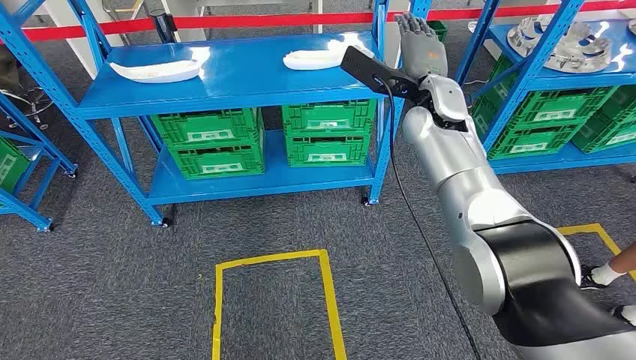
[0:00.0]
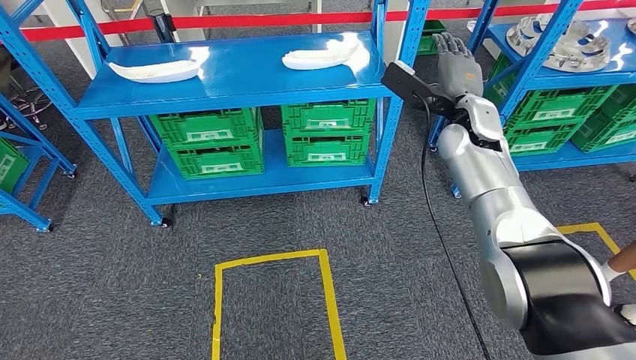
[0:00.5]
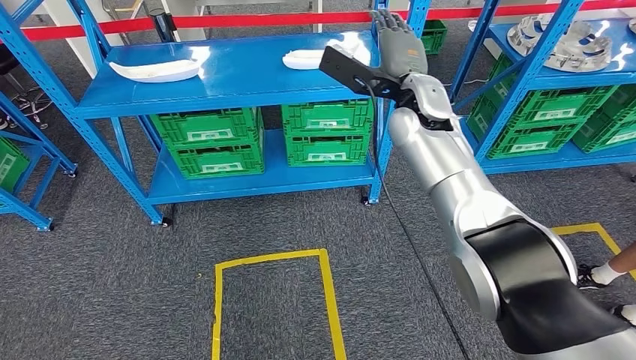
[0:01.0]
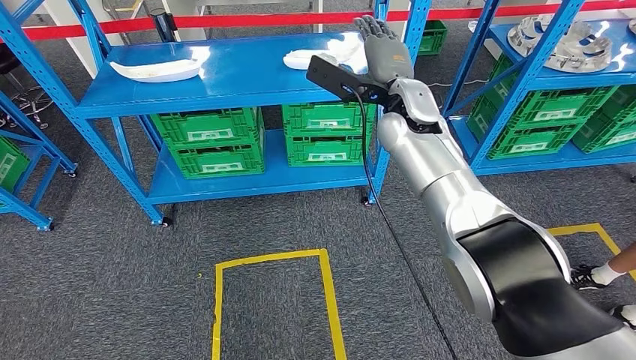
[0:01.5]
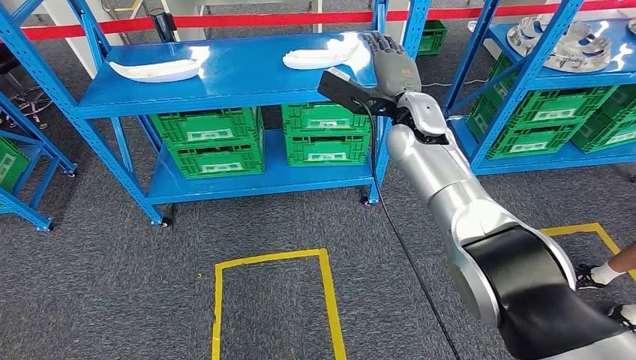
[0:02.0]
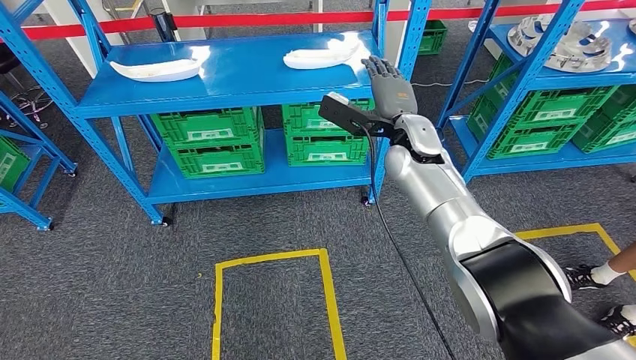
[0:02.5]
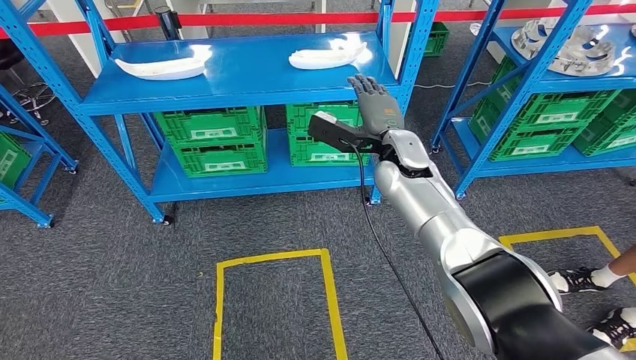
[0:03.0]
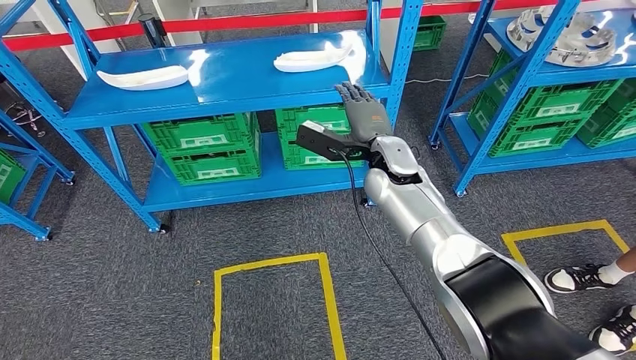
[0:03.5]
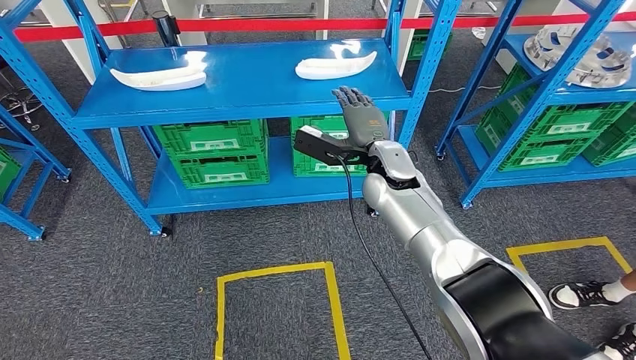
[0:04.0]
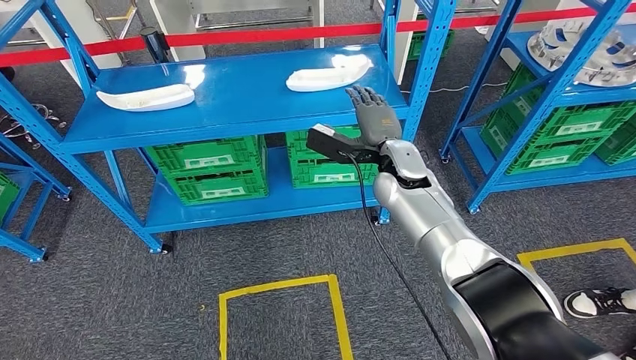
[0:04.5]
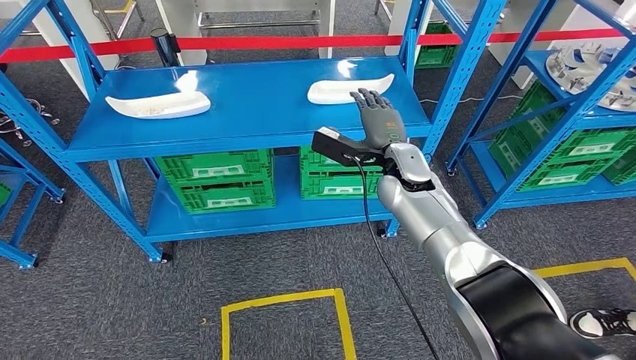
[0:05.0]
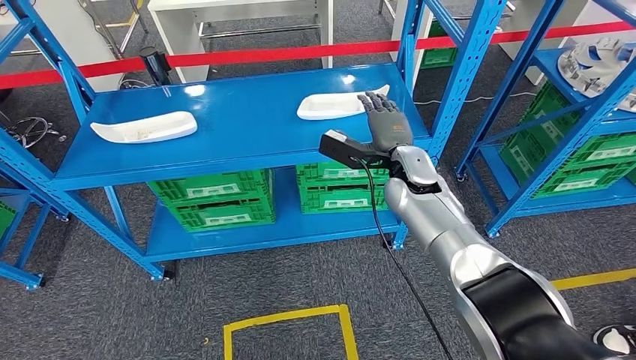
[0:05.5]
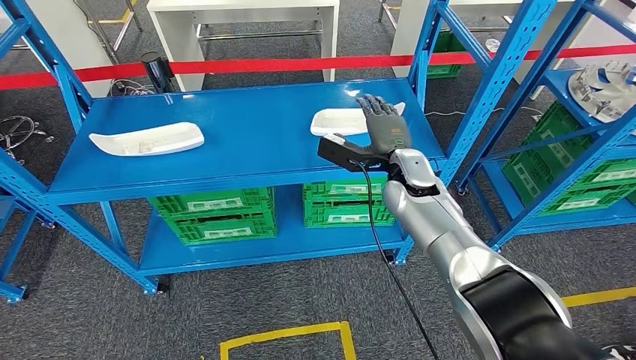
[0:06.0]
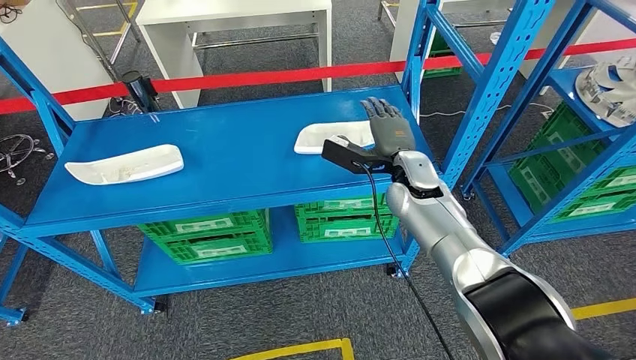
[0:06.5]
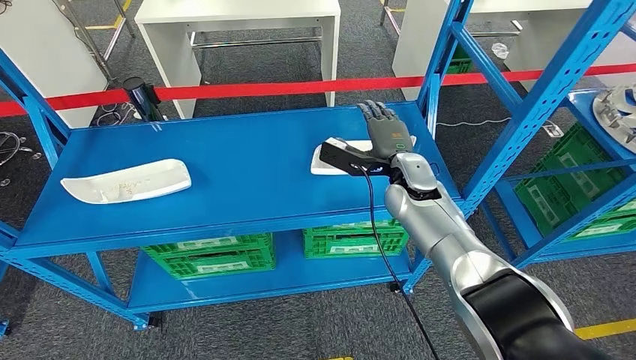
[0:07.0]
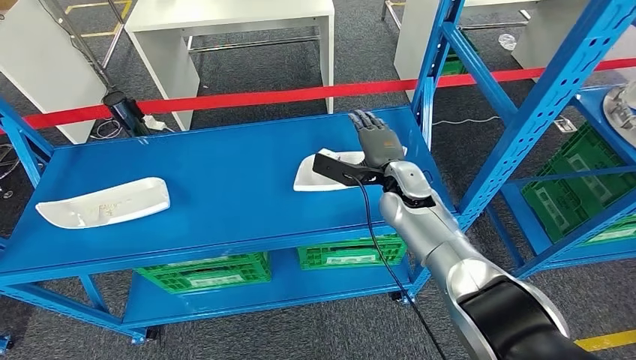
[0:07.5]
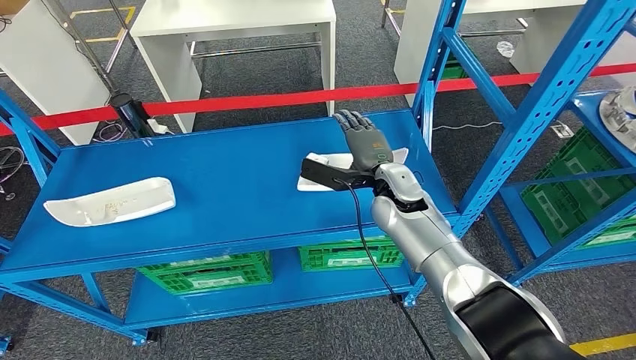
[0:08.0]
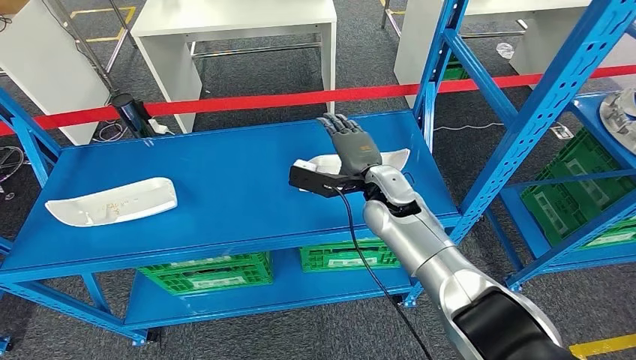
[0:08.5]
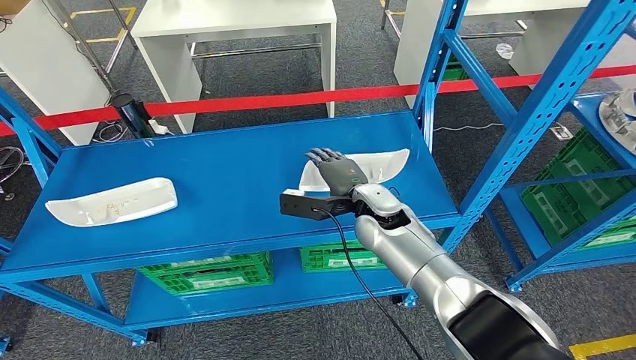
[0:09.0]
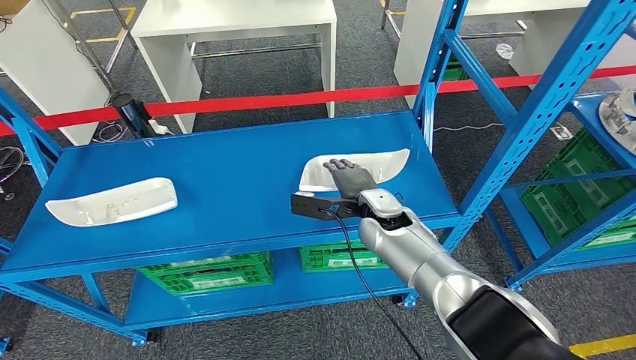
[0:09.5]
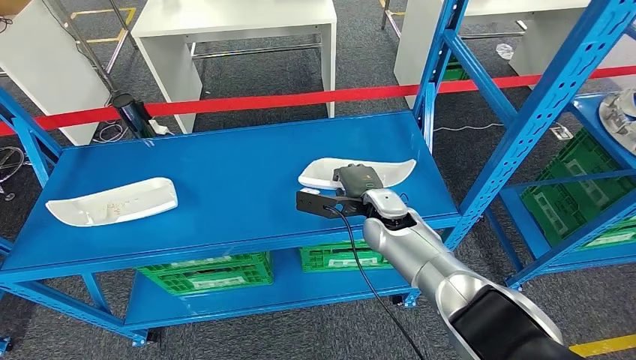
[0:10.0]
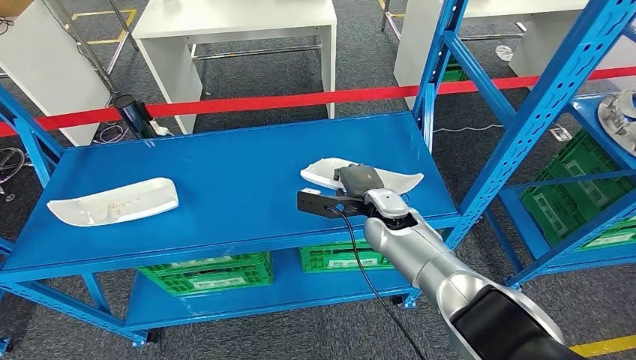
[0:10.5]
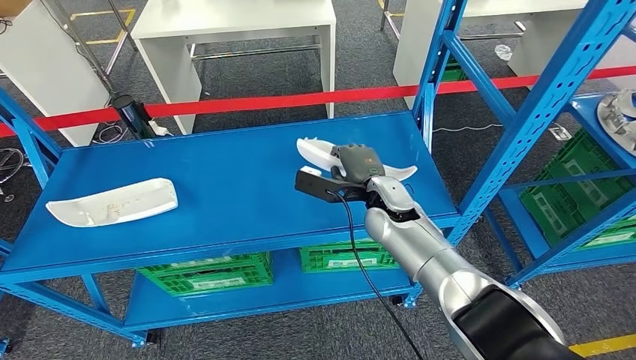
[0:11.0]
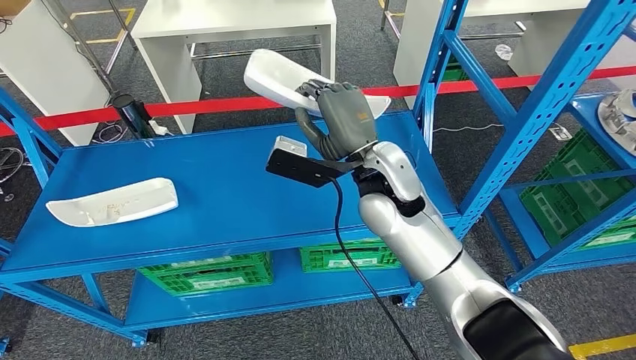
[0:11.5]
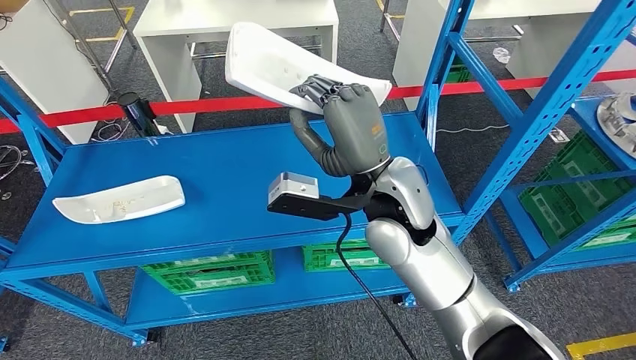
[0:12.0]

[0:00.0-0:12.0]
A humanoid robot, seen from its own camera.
Step, 0:00.0 to 0:11.0: Pick up the small component from the shelf.

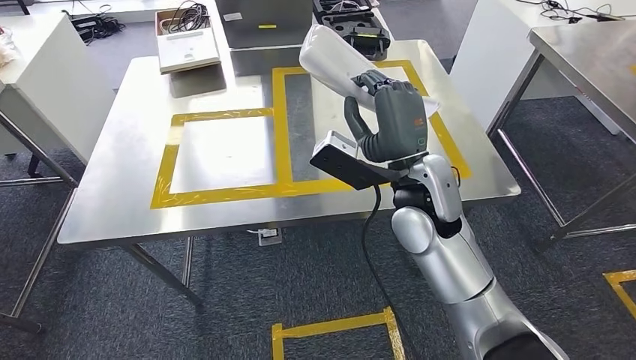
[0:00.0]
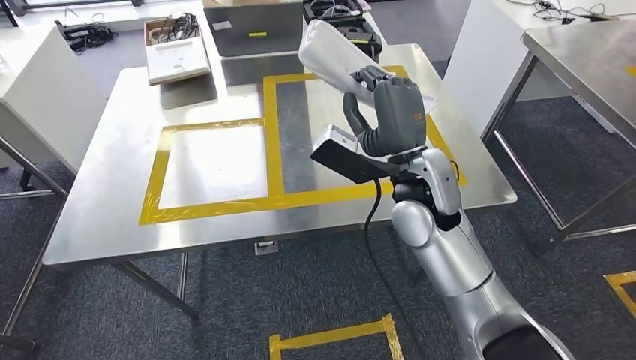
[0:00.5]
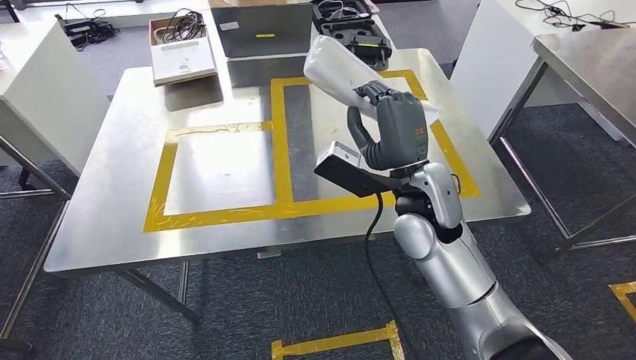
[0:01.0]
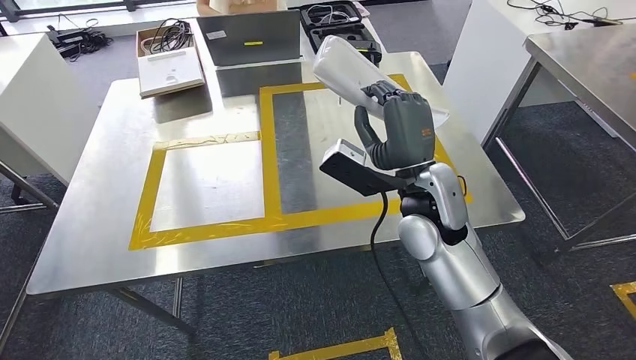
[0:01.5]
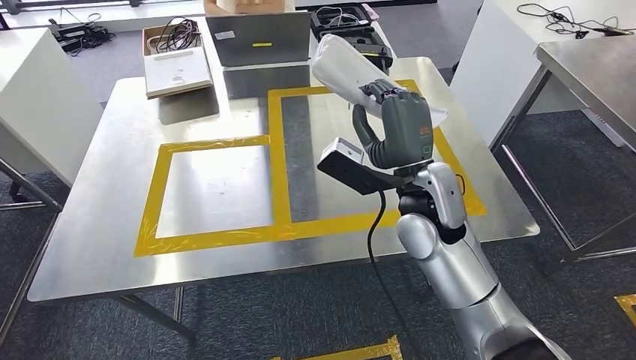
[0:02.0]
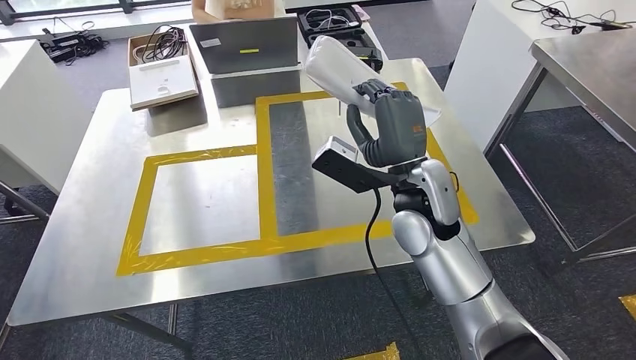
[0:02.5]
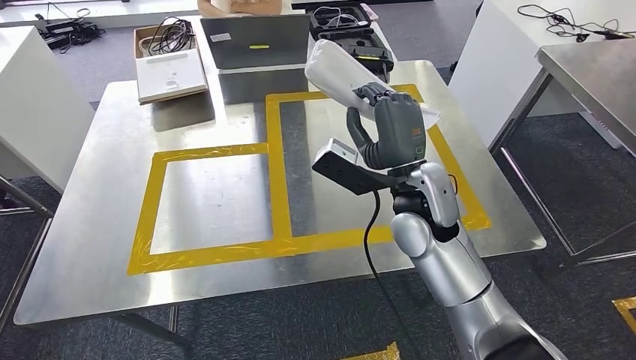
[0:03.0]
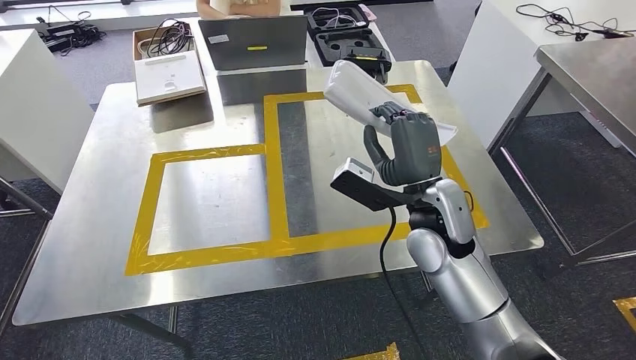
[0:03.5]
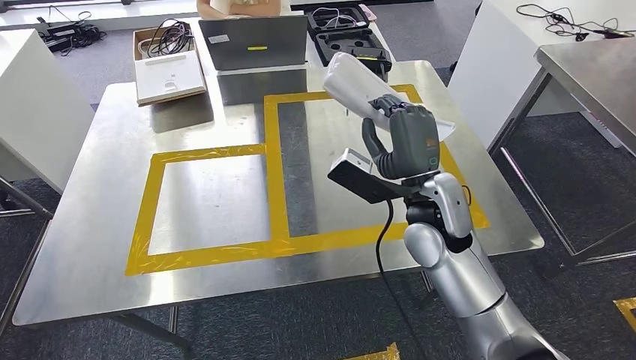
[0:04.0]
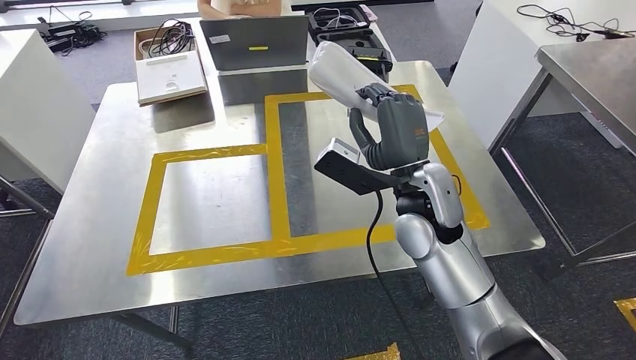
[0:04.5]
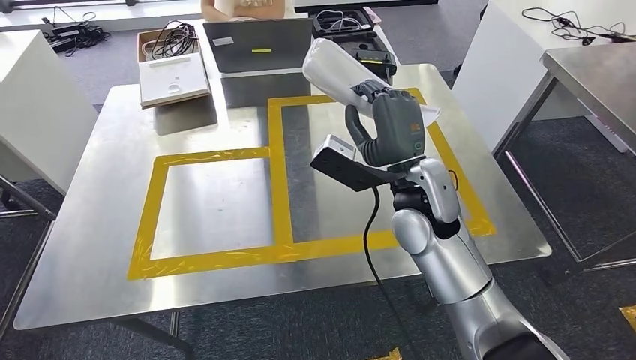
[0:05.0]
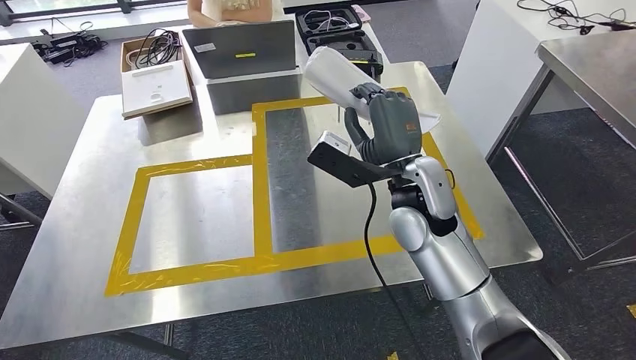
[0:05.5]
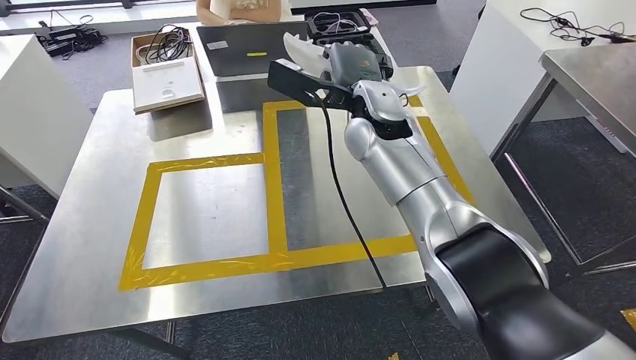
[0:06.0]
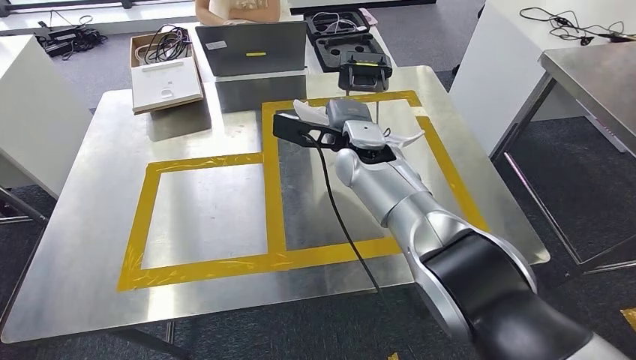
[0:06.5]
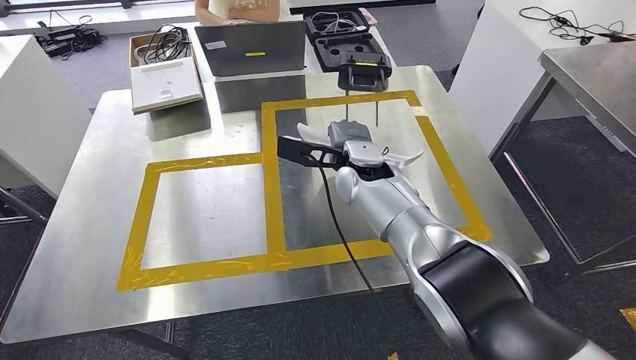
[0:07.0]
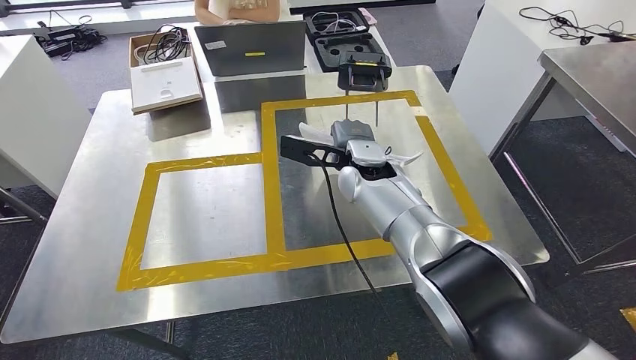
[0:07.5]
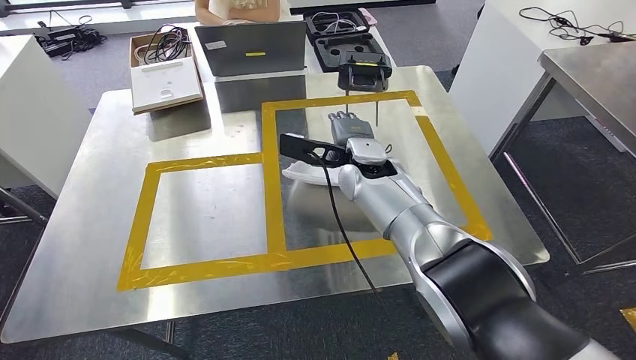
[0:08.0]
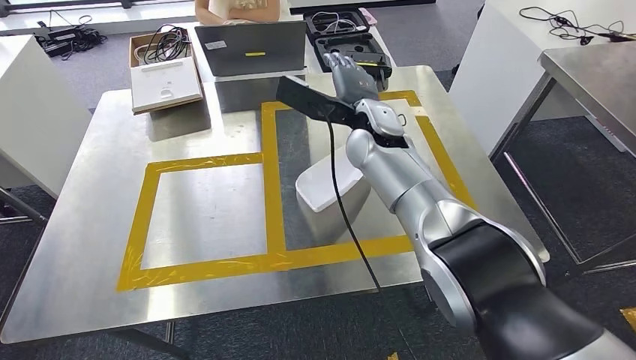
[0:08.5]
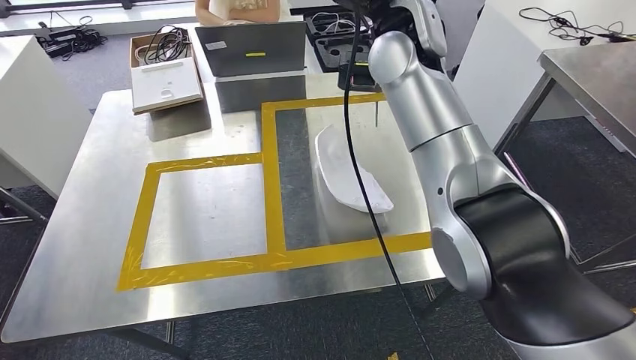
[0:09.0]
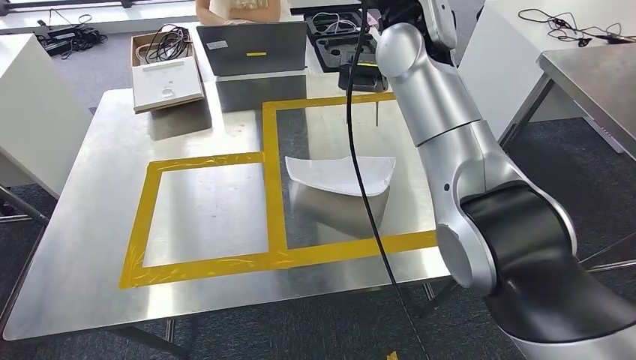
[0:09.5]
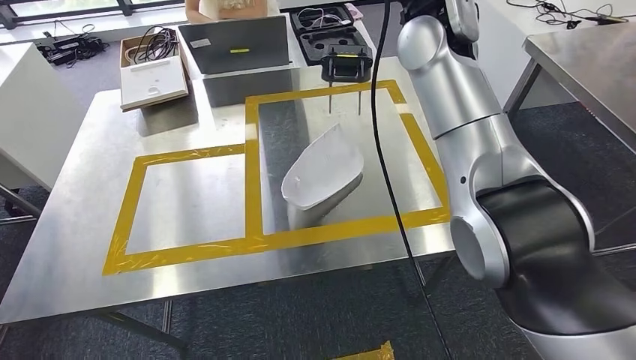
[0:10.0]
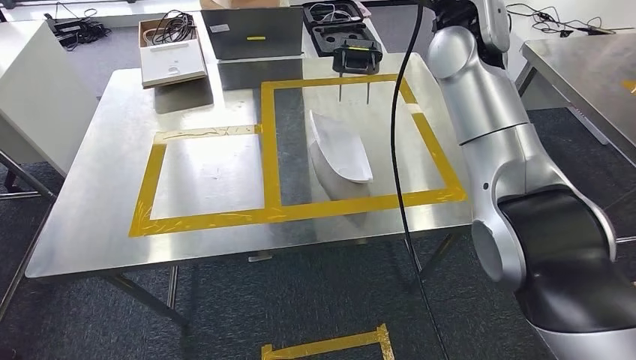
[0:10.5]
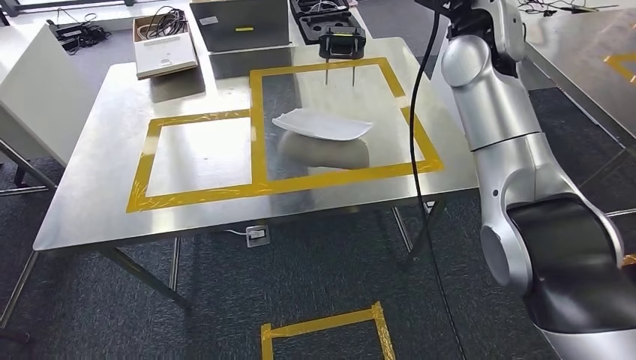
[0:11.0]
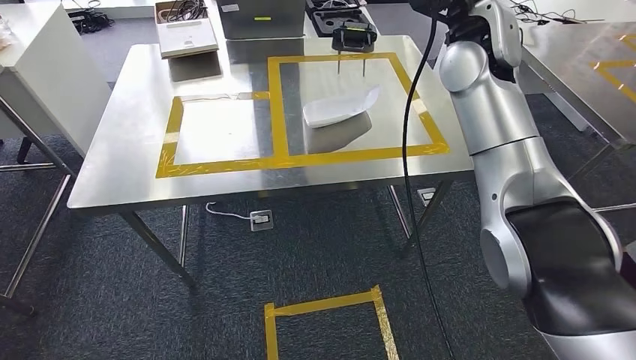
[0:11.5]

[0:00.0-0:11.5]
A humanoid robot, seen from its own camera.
Step, 0:00.0 to 0:08.5: Move the small component to the workbench.
0:06.0 to 0:07.5: The right hand goes about 10 cm downward.
